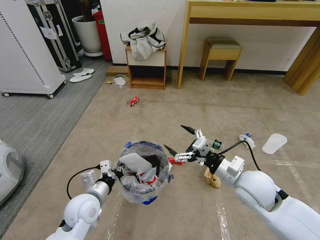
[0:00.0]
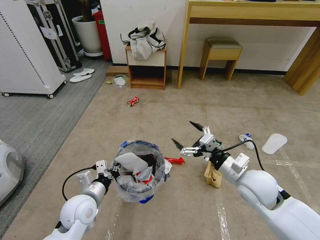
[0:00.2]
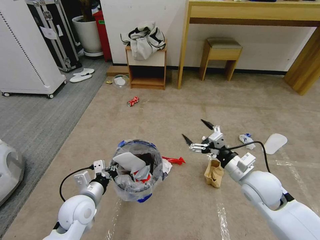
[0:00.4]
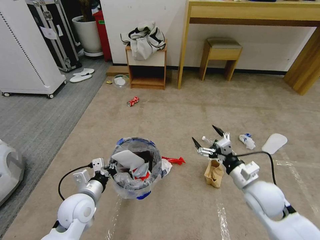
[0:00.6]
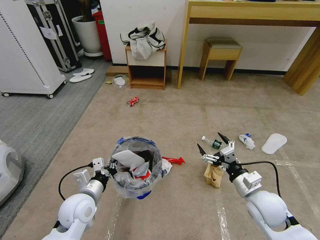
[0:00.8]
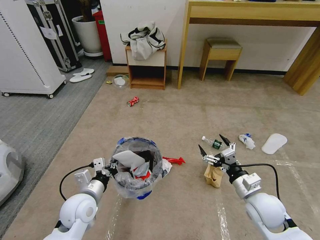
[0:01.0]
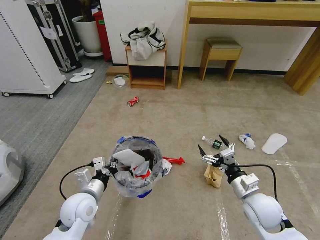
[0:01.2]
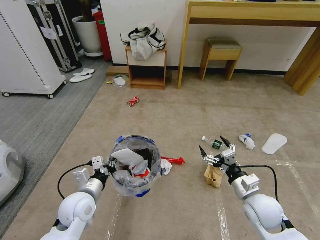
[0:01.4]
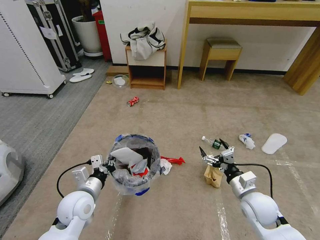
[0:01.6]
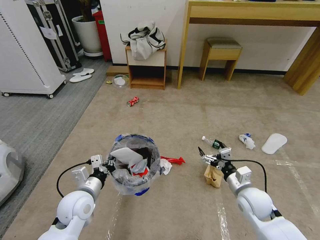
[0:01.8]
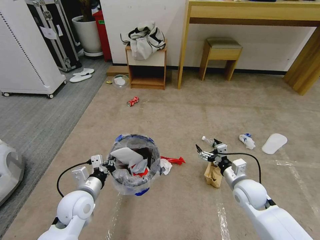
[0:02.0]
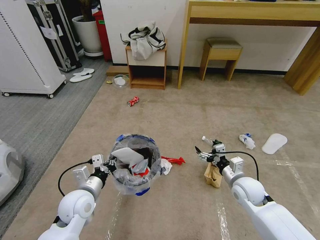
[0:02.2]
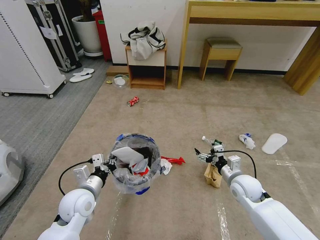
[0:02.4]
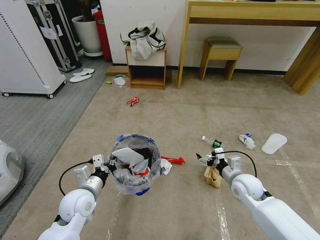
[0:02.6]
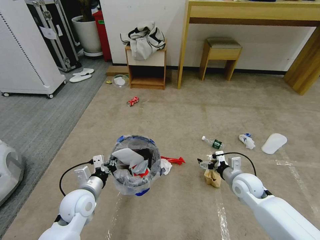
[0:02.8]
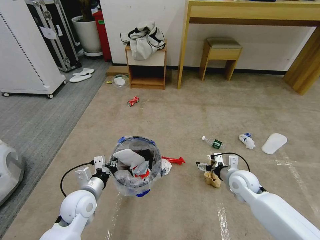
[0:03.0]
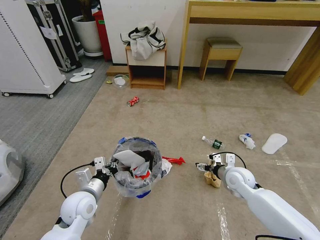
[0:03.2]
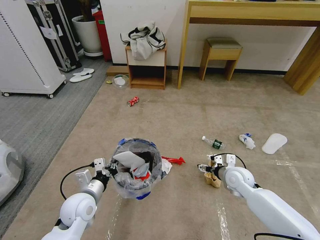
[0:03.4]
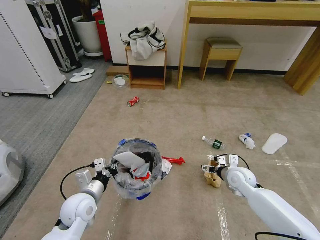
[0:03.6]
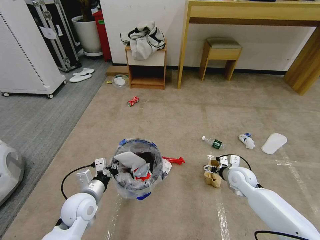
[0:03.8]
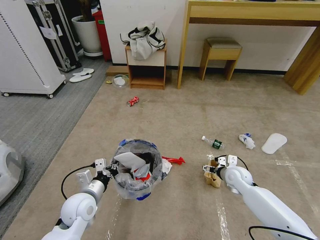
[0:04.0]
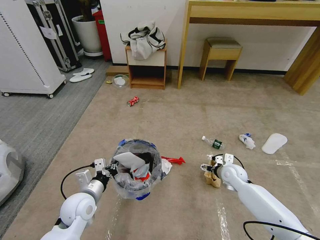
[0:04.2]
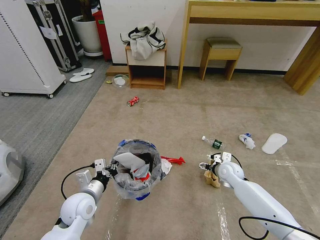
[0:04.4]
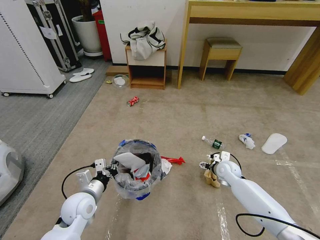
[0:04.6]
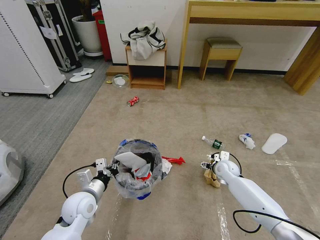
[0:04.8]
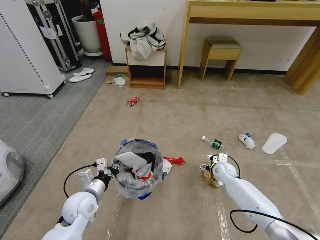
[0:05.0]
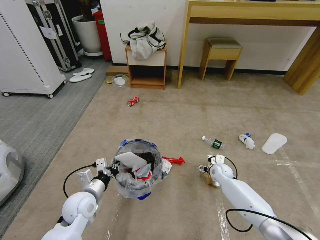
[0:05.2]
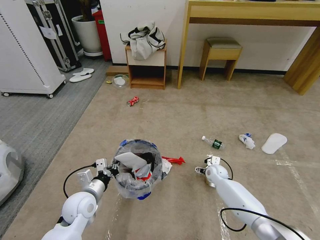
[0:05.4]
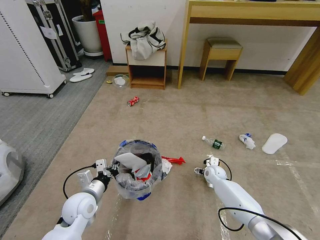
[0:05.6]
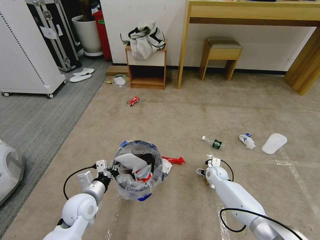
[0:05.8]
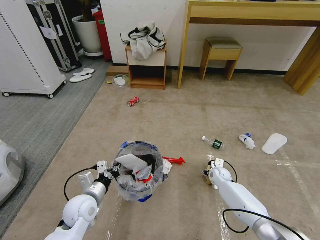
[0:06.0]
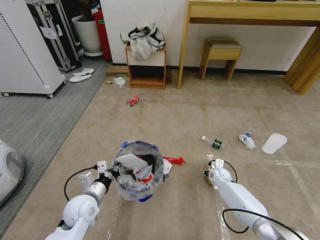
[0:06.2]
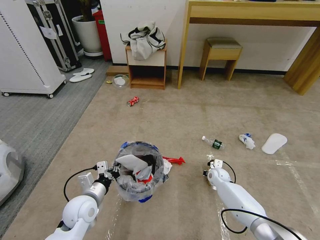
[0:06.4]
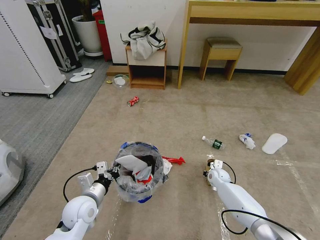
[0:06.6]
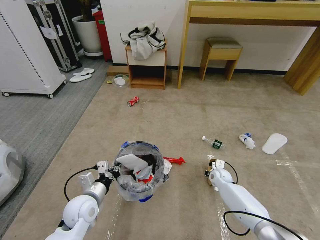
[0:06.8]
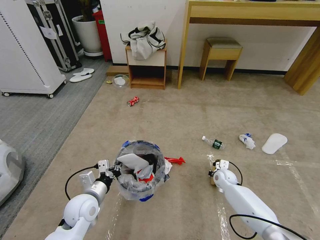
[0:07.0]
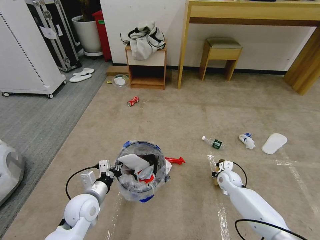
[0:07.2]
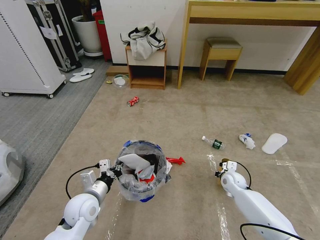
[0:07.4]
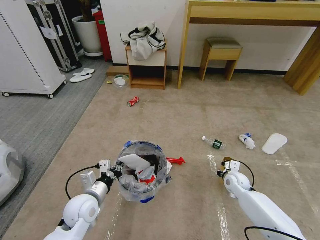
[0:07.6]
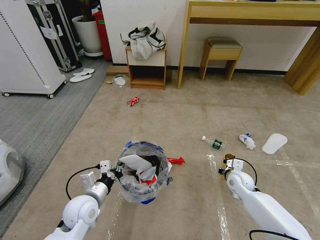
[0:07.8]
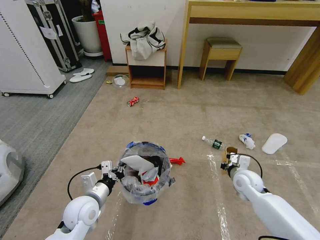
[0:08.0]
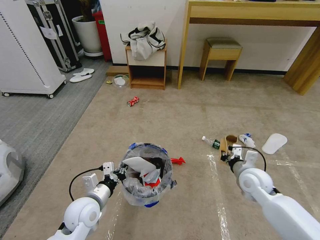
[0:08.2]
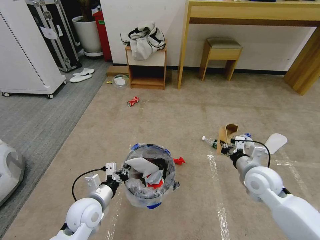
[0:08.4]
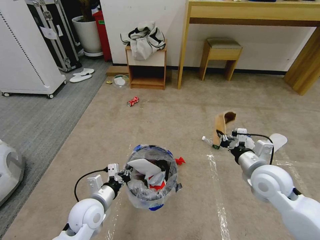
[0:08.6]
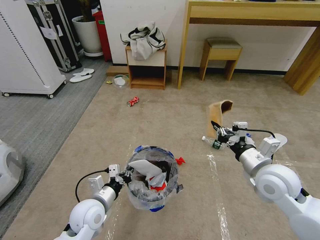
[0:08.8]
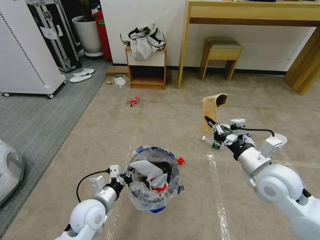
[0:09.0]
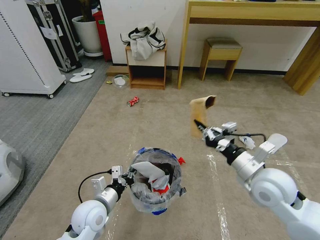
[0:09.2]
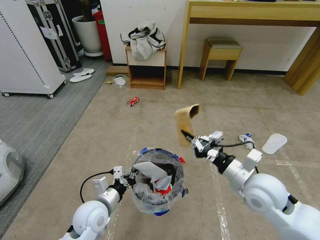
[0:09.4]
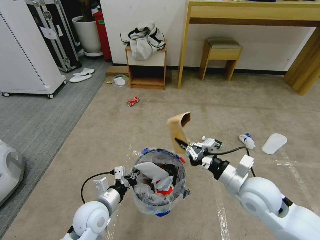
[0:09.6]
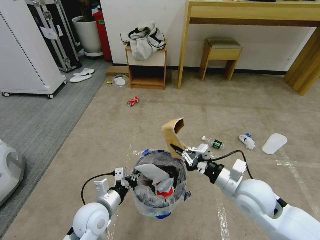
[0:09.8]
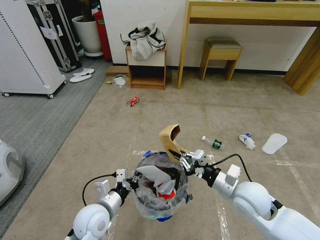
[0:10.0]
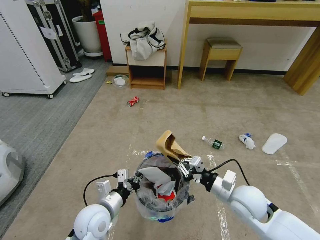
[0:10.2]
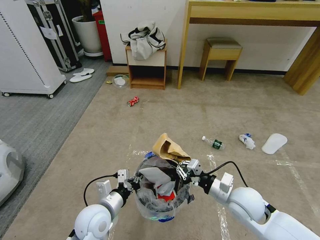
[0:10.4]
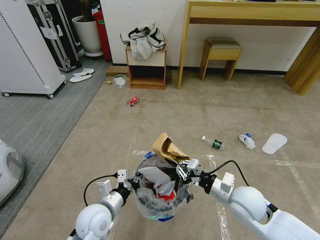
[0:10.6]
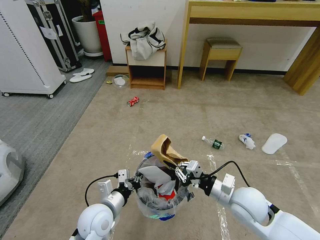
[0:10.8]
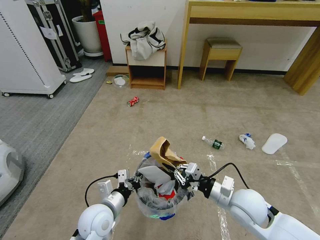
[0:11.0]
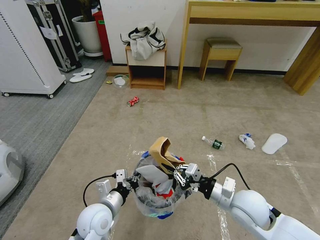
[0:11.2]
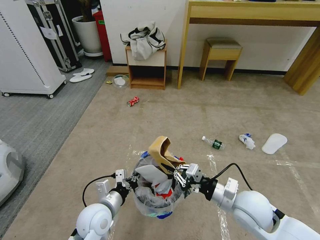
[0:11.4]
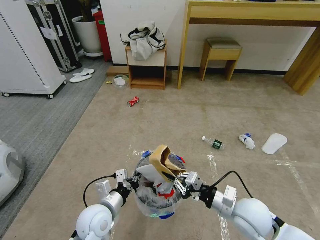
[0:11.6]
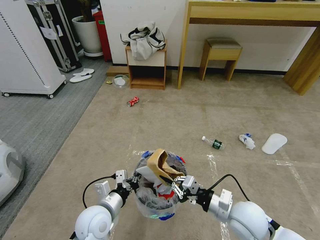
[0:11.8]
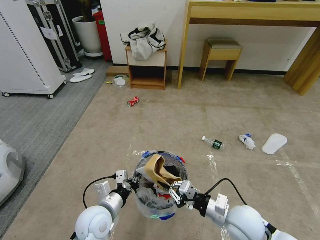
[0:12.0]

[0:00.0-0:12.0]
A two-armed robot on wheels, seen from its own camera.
Task of the whole recording: Pick up the trash bin and place the garbage on the floor into it.
0:00.0 to 0:01.6: The right gripper travels downward and to the right by approximately 10 cm.
0:01.6 to 0:03.0: The right gripper goes roughly 10 cm forward.
0:03.0 to 0:04.4: The right gripper heads forward, covering some 5 cm.
0:04.4 to 0:06.0: The right gripper goes roughly 10 cm downward.
0:06.0 to 0:07.6: The right gripper goes some 10 cm backward and upward, and closes its fingers.
0:07.6 to 0:09.0: The right gripper is displaced upward and backward by roughly 25 cm.
0:09.0 to 0:10.4: The right gripper goes about 10 cm downward.
0:10.4 to 0:12.0: The right gripper ends up about 5 cm from where it was.

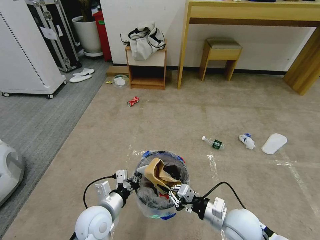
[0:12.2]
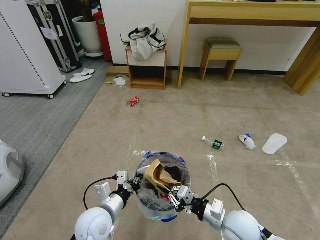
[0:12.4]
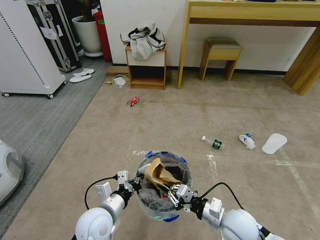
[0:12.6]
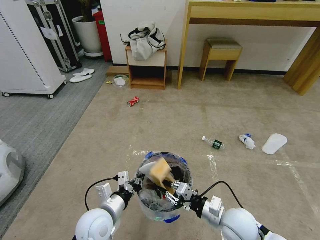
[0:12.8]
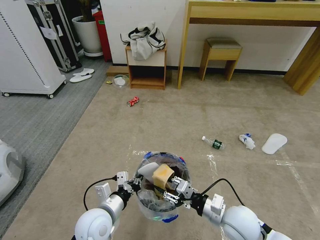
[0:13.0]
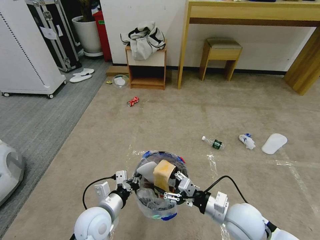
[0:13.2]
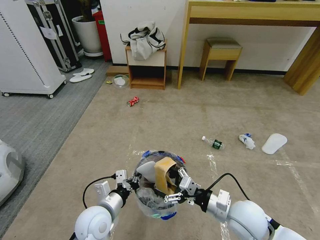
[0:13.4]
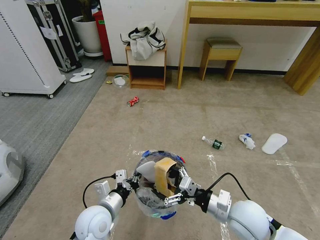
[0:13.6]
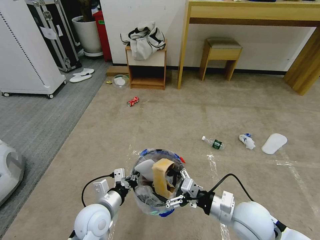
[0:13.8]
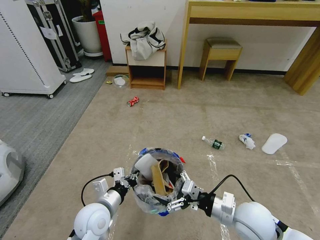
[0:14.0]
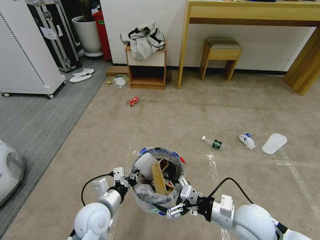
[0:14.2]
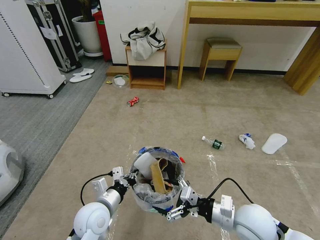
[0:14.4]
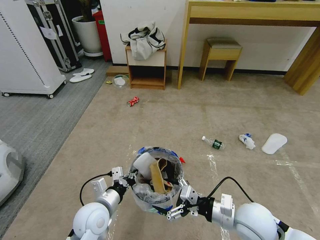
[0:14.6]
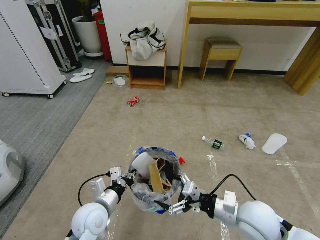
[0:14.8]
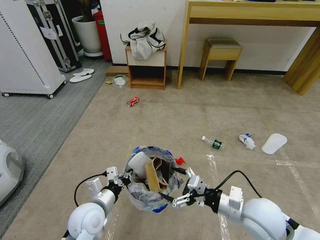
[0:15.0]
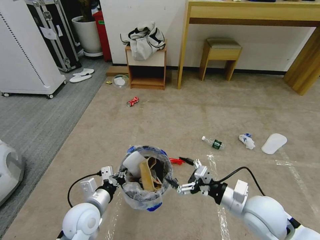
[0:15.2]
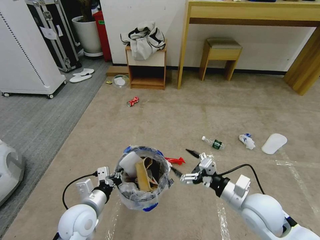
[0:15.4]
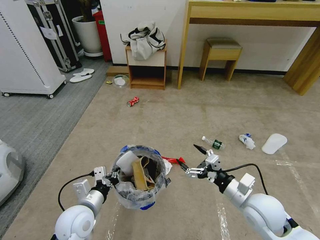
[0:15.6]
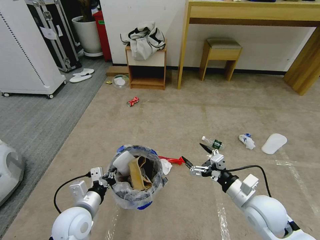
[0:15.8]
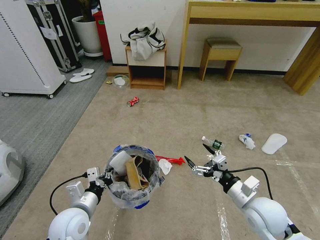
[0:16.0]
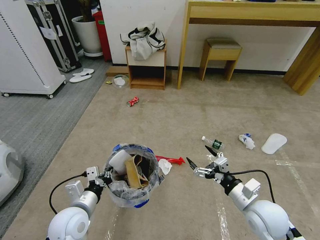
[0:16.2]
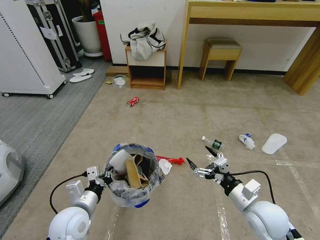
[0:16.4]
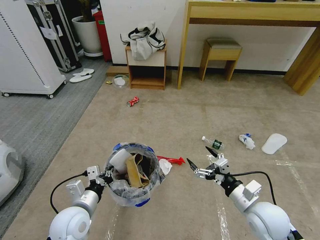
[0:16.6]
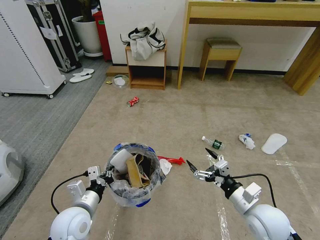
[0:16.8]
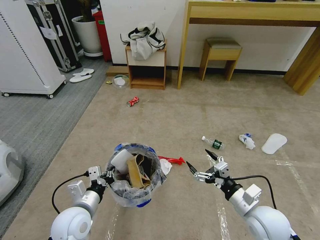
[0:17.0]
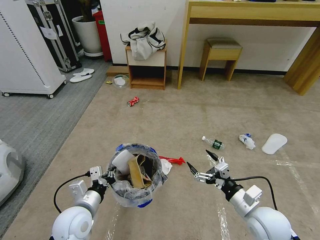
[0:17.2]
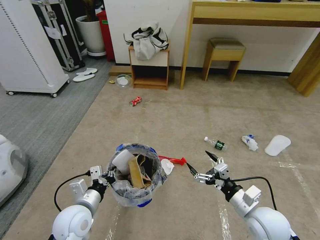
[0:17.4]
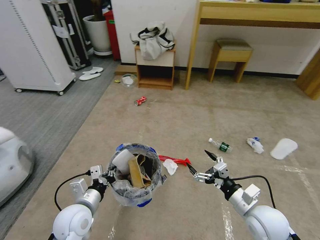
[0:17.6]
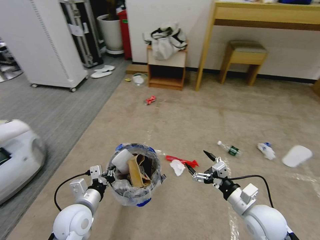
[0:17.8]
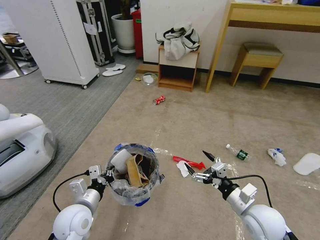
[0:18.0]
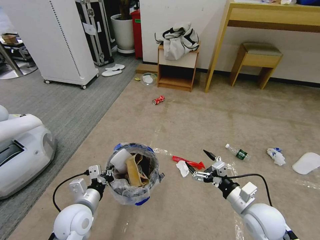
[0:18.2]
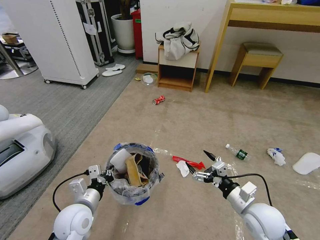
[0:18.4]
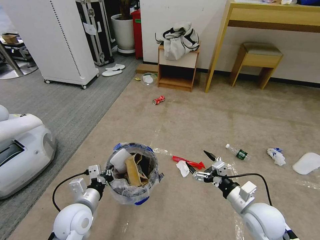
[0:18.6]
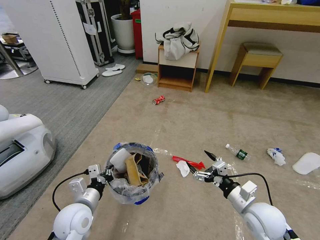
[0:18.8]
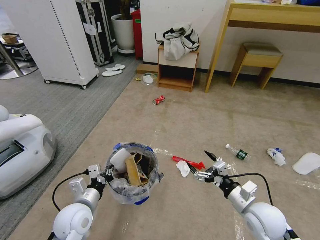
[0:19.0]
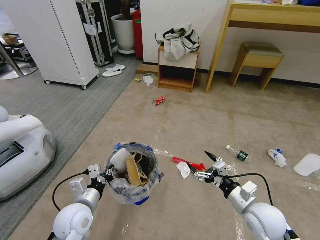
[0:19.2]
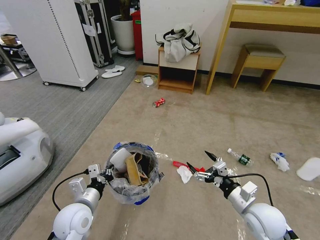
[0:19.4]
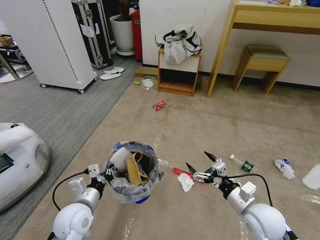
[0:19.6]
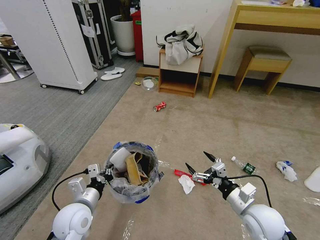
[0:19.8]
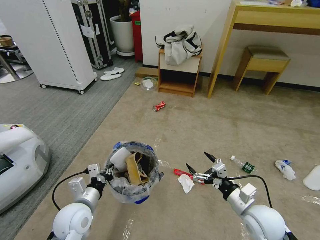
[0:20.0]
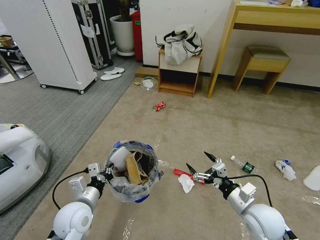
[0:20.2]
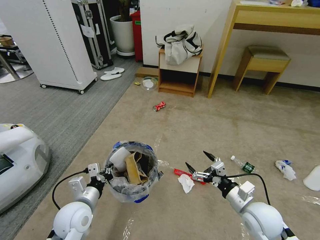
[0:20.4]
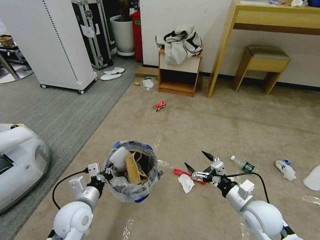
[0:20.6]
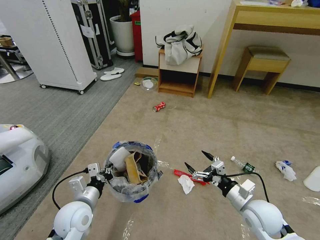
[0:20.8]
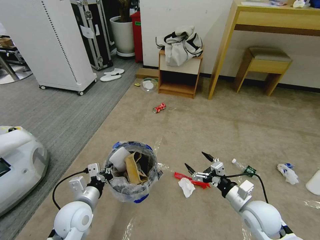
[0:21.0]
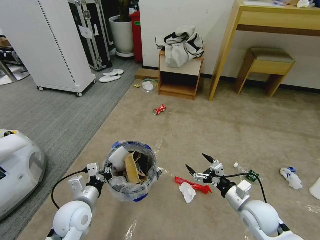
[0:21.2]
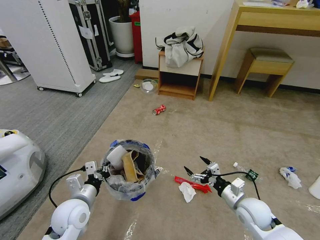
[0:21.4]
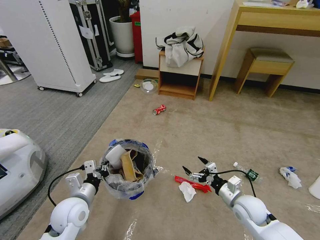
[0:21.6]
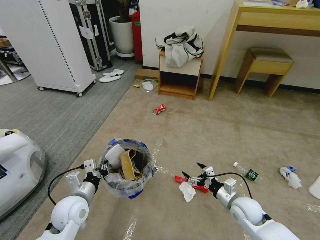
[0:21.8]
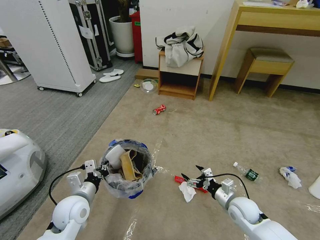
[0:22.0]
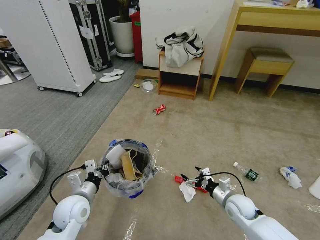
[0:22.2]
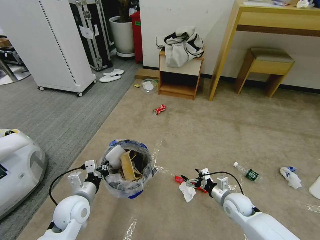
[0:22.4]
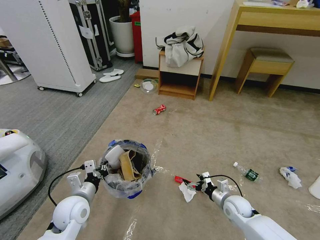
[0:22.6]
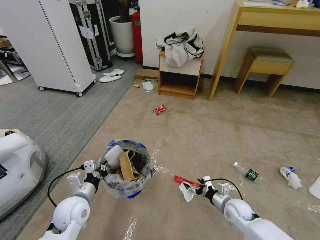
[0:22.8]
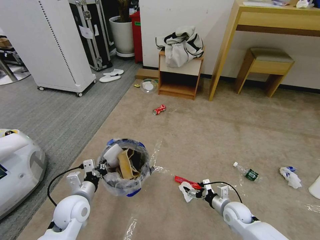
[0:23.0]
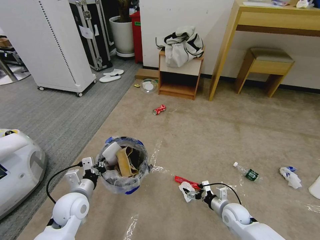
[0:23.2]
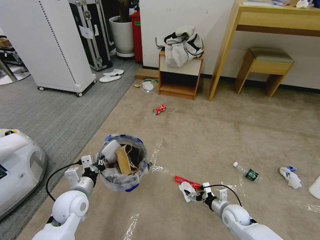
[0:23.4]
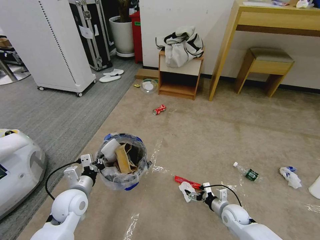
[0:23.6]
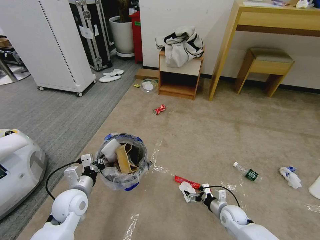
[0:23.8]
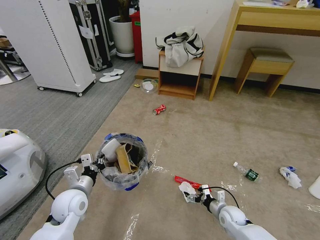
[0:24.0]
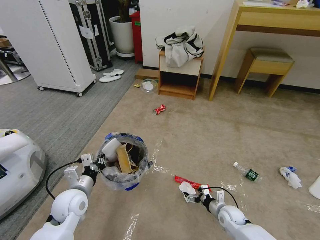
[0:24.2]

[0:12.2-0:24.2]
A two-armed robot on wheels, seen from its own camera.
Task of the whole recording: Pick up the trash bin and place the garbage on the floor into it.
0:12.2 to 0:13.8: The right gripper opens up.
0:13.8 to 0:15.2: The grippers make only small movements.
0:19.8 to 0:21.2: The grippers move only a little.
0:21.2 to 0:22.6: The right gripper goes roughly 10 cm downward and forward.
0:22.6 to 0:24.2: The right gripper heads downward, covering some 5 cm.
